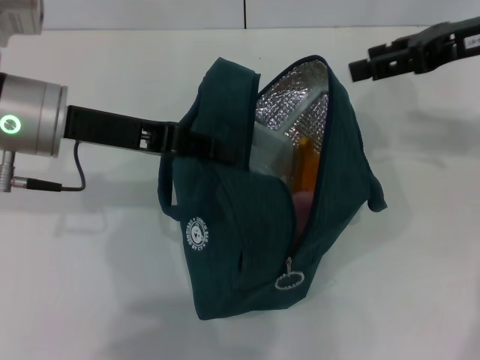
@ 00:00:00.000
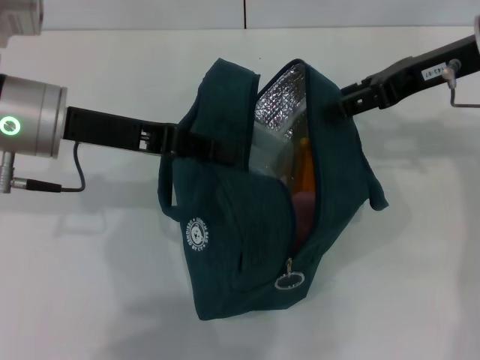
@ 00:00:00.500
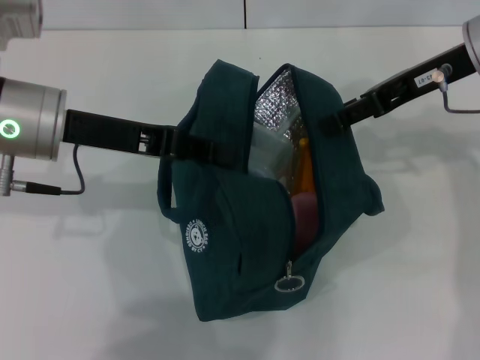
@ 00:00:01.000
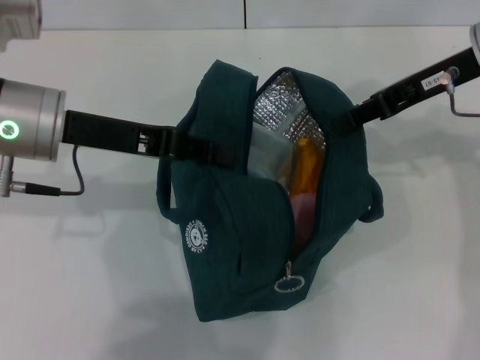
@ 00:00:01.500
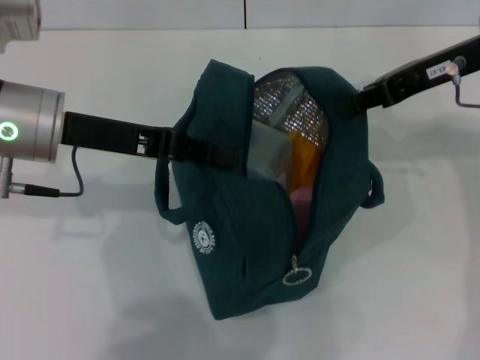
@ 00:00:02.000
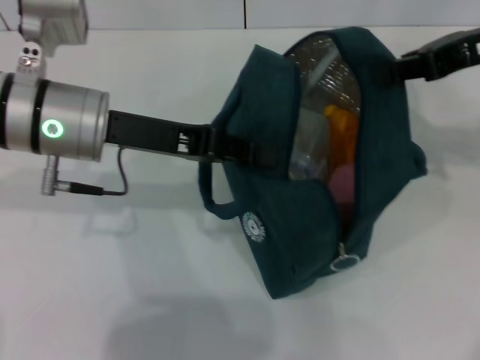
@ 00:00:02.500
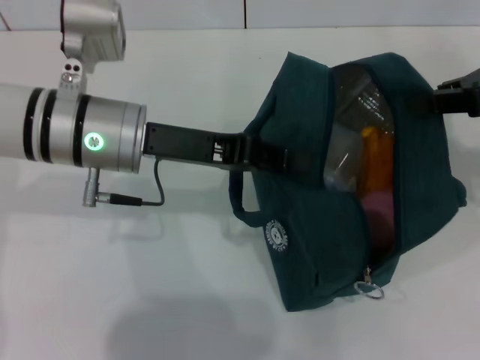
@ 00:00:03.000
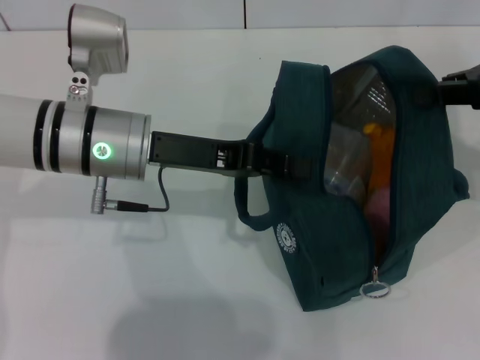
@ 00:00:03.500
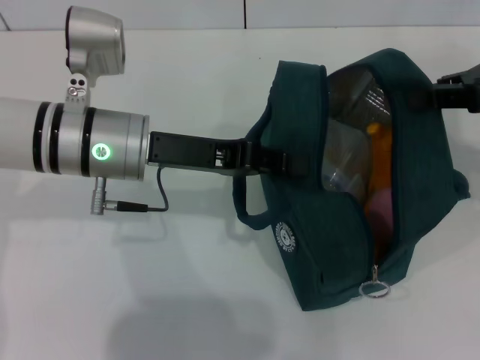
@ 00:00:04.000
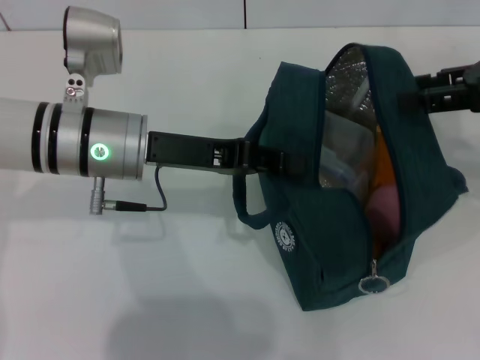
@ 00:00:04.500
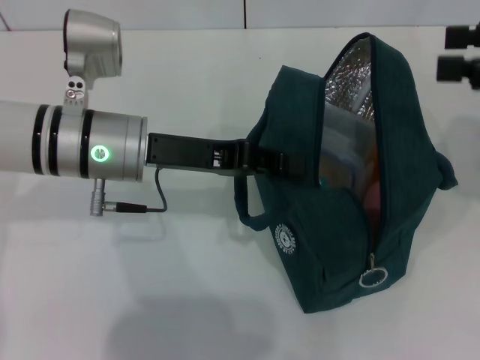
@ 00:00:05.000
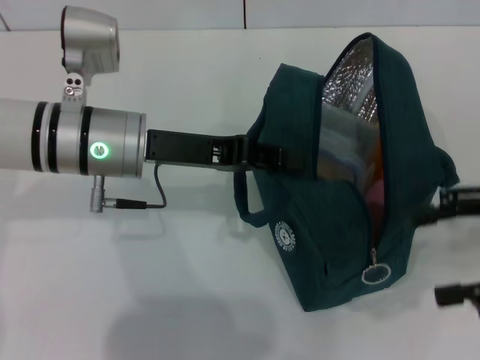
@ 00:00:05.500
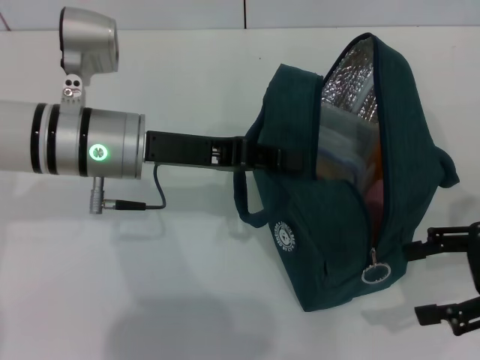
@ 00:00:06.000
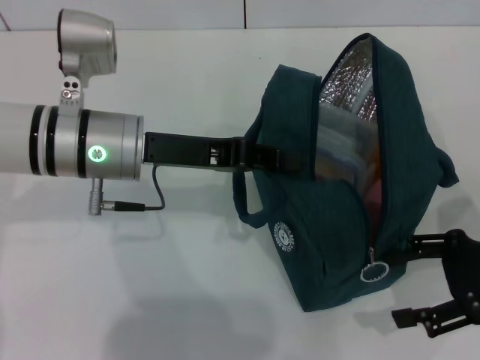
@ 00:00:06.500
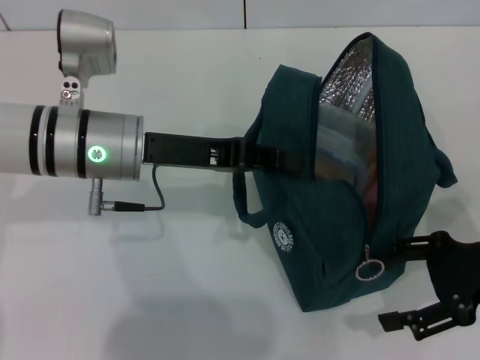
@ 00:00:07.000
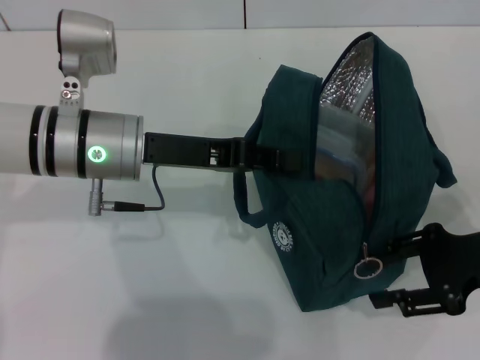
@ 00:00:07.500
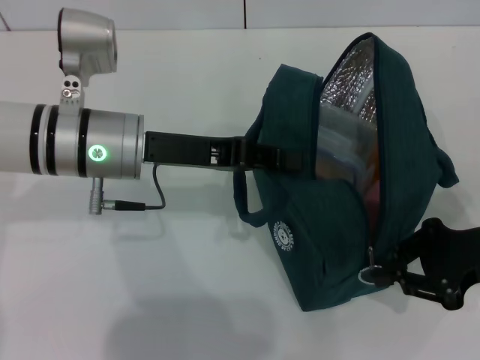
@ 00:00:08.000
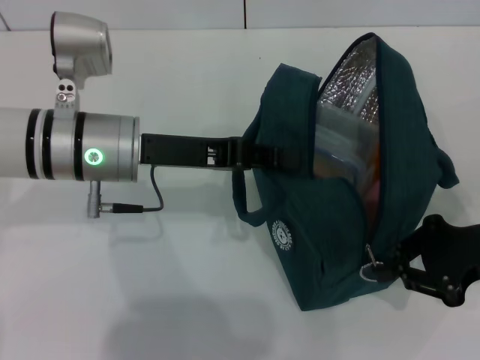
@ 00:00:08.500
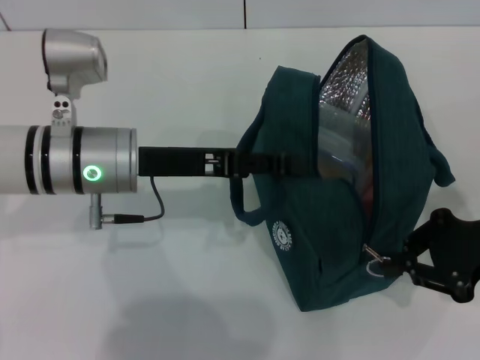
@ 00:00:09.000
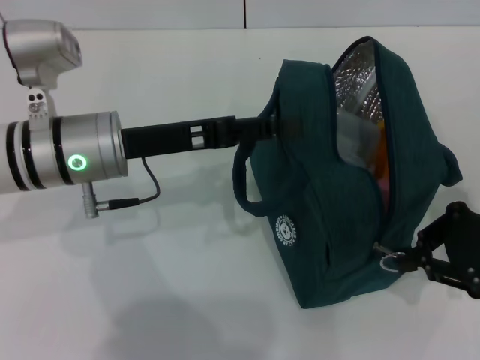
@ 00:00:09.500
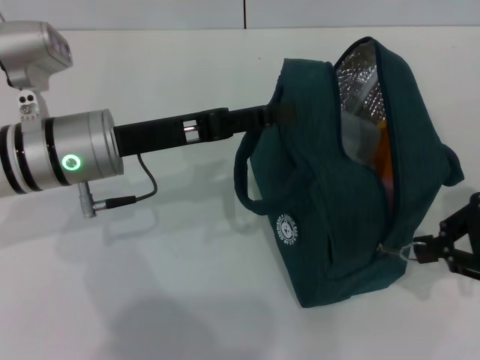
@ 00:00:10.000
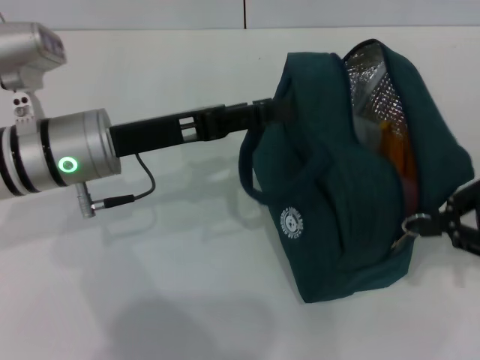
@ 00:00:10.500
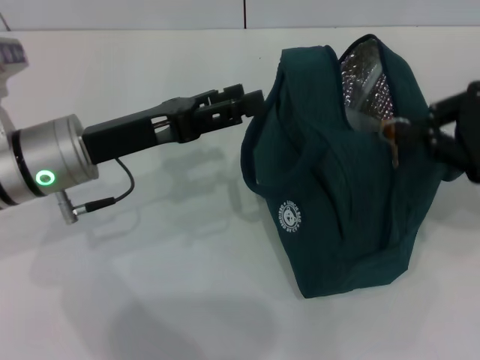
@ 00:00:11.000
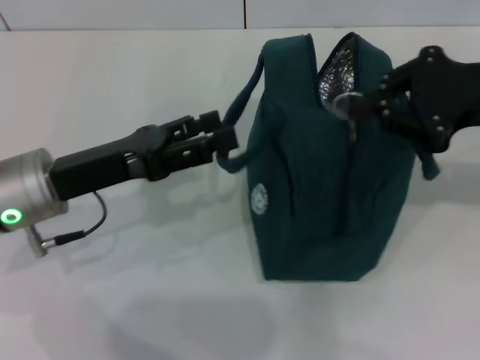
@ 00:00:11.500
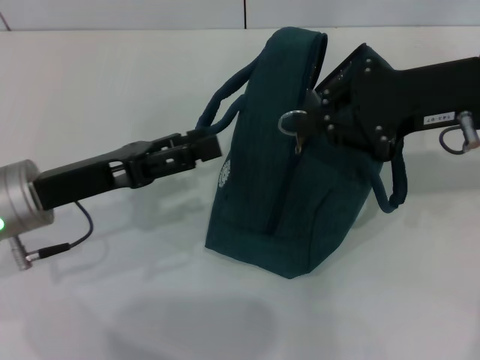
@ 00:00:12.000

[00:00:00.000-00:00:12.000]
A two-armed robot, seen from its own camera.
Step, 00:00:00.000 to 00:00:04.500: Hold the lunch bag with your right hand.
Step, 00:00:05.000 to 00:00:10.500: Hold the lunch bag with your left hand.
00:00:00.000 to 00:00:02.000: The right gripper closes.
00:00:02.000 to 00:00:04.000: Both grippers move to the right, approximately 5 cm.
00:00:04.000 to 00:00:06.000: The right gripper is displaced downward and backward by roughly 15 cm, and opens up.
00:00:06.000 to 00:00:08.000: The right gripper closes.
00:00:08.000 to 00:00:10.000: The right gripper changes place by approximately 5 cm; the left gripper opens up.
00:00:10.000 to 00:00:12.000: The left gripper shifts some 5 cm to the left. Meanwhile the right gripper moves to the left, forward and upward, roughly 15 cm.

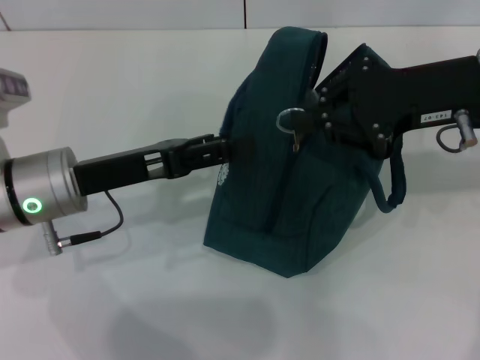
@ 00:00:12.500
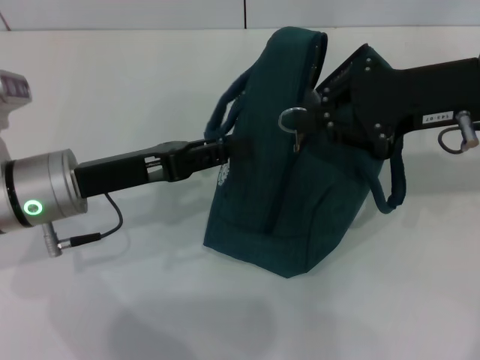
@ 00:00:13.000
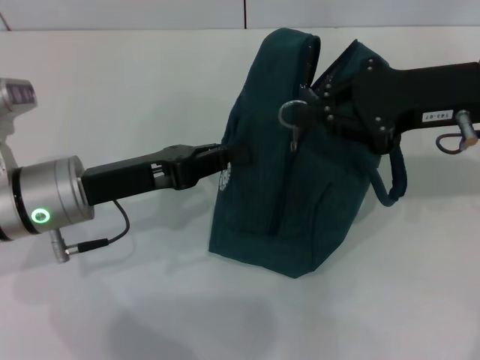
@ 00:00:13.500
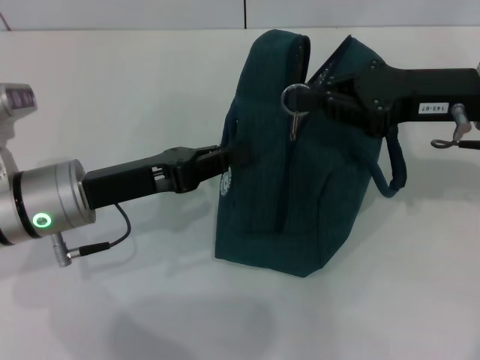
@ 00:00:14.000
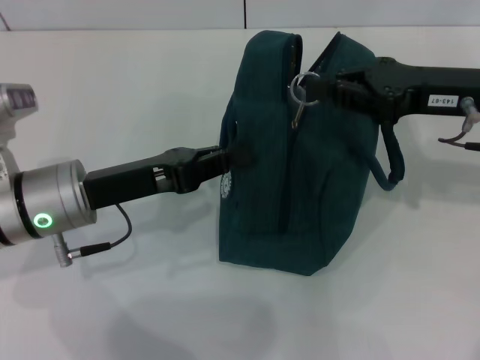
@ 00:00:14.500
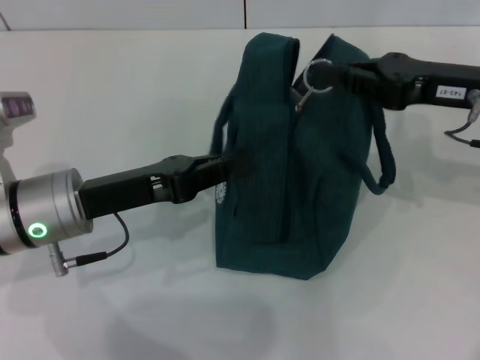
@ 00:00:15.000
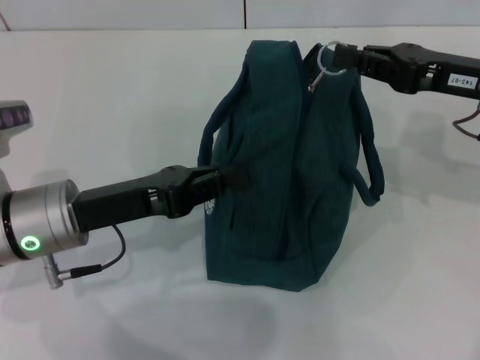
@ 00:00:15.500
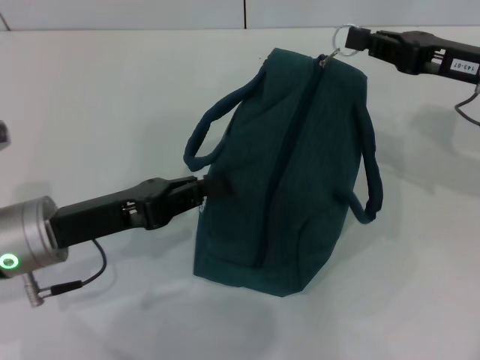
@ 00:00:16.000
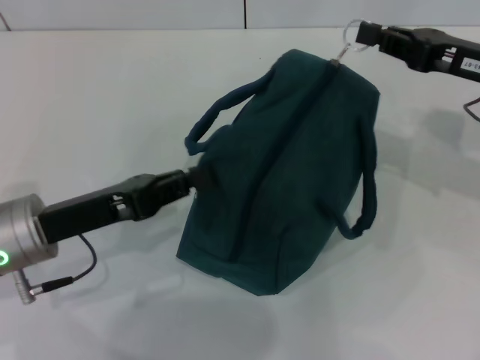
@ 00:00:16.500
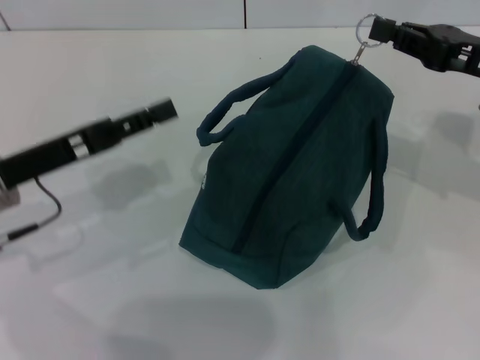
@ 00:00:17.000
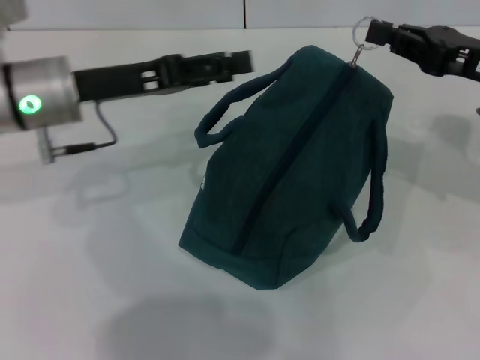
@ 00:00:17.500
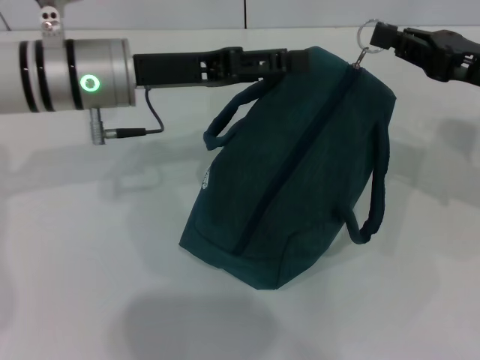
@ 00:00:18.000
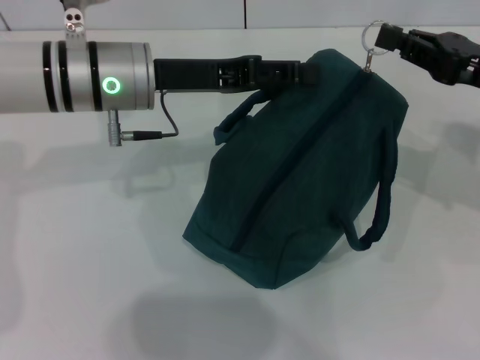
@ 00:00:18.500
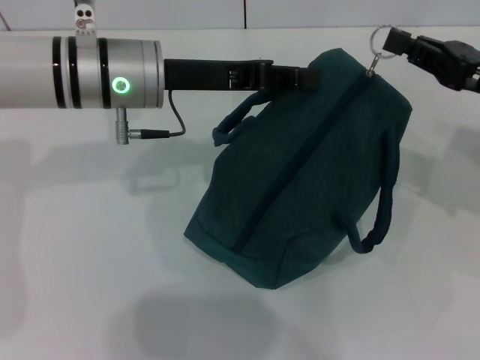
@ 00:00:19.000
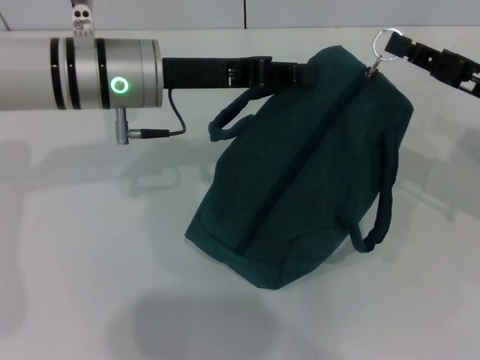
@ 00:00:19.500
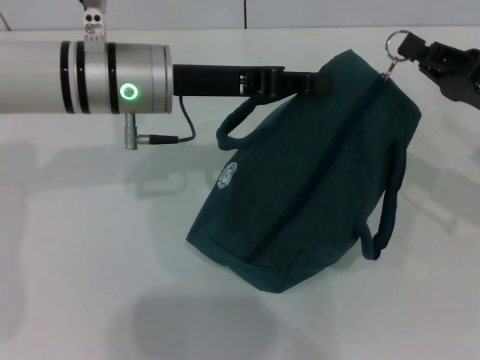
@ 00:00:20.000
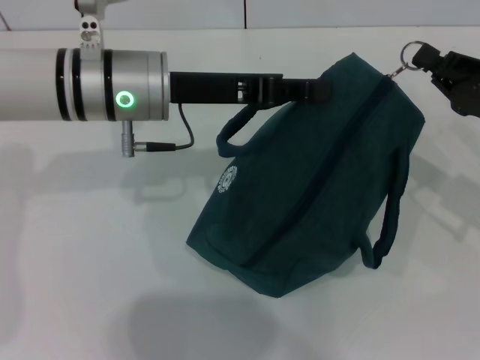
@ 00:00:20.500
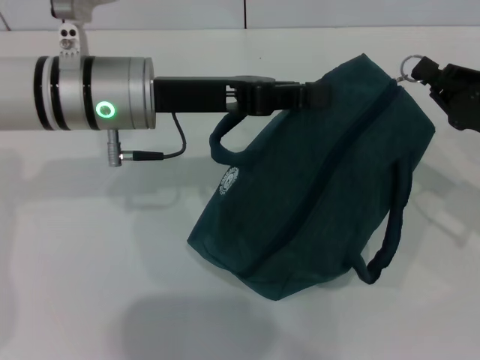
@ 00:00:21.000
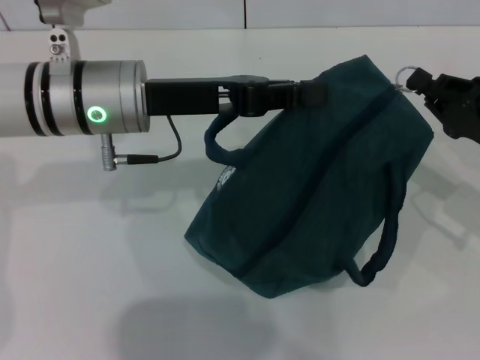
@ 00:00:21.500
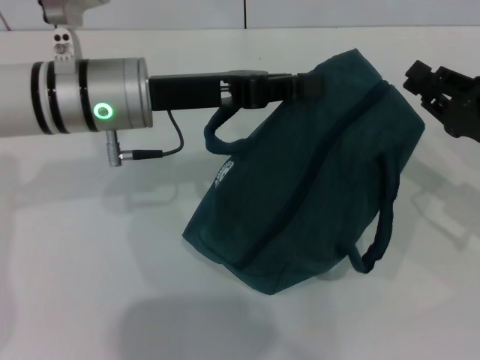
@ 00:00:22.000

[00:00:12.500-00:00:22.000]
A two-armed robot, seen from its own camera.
00:00:12.500 to 00:00:14.500: The left gripper closes up.
00:00:16.500 to 00:00:18.000: The left gripper is displaced forward, upward and to the right by some 15 cm, and opens.
00:00:18.000 to 00:00:20.000: The right gripper ends up some 5 cm from where it was. The left gripper closes.
00:00:20.000 to 00:00:22.000: The grippers stay close to where they were, moving slightly.

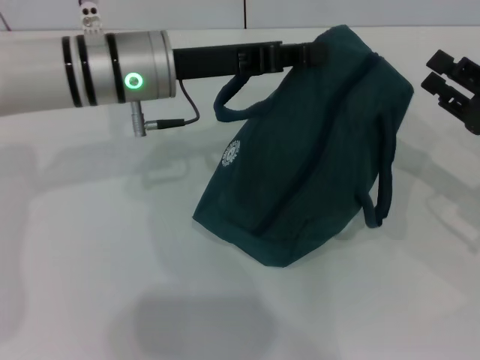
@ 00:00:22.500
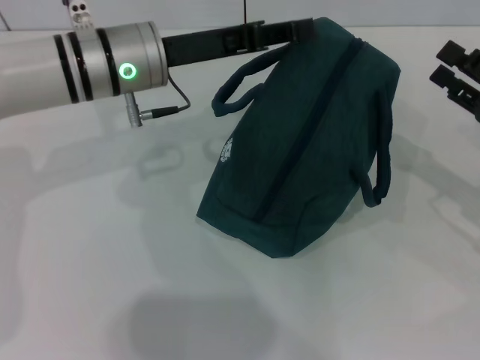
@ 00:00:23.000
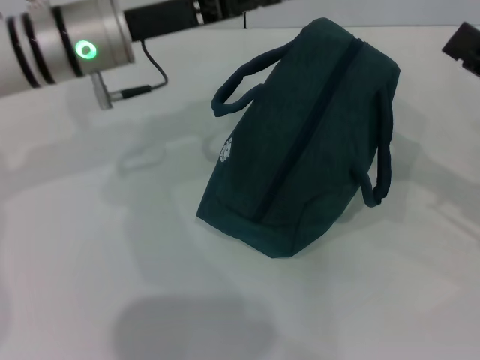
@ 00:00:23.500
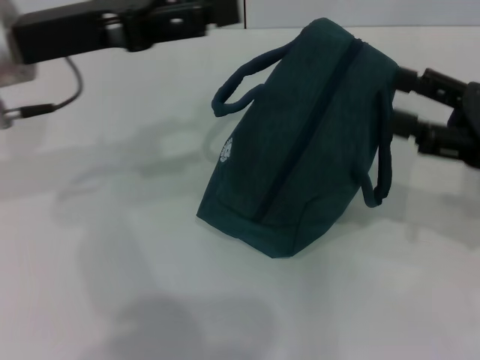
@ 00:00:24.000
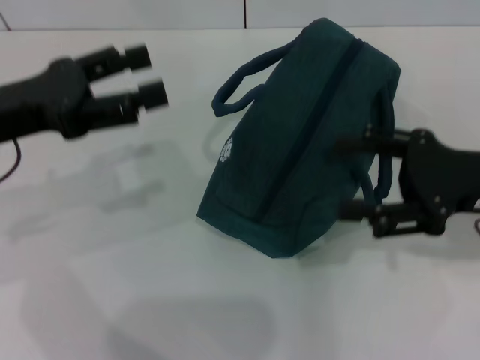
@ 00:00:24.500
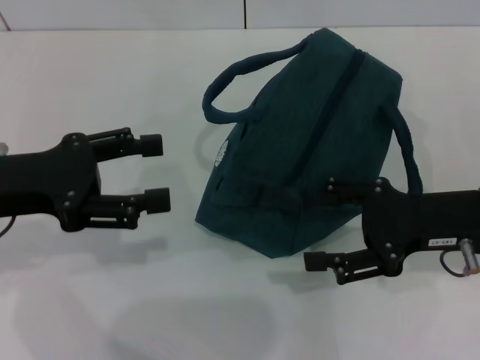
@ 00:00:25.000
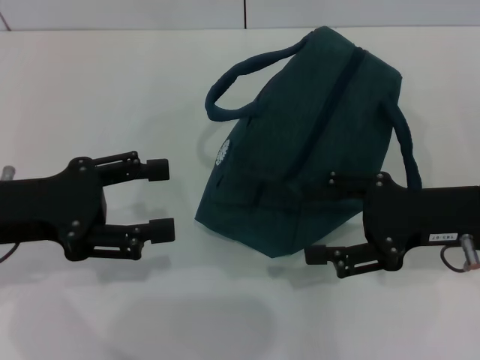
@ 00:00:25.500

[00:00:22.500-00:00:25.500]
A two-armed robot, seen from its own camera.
Step, 00:00:23.000 to 00:00:23.500: Hold the lunch bag with your left hand.
00:00:22.500 to 00:00:24.000: The right gripper is displaced upward by about 5 cm, and opens its fingers; the left gripper heads to the left and upward, covering approximately 10 cm, and opens.
00:00:24.000 to 00:00:25.500: The right gripper heads to the left, covering some 5 cm. The left gripper moves backward, downward and to the left, roughly 10 cm.
